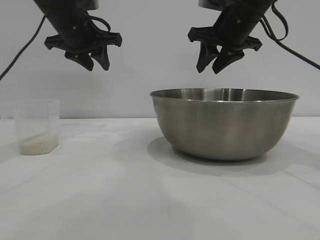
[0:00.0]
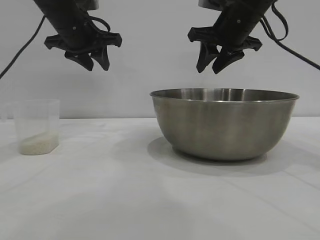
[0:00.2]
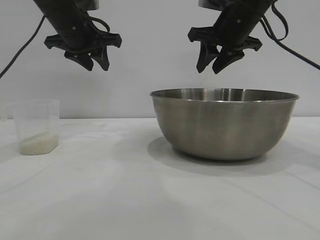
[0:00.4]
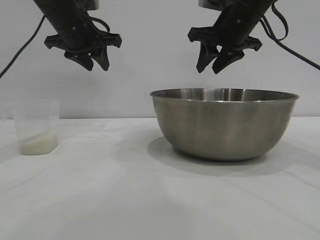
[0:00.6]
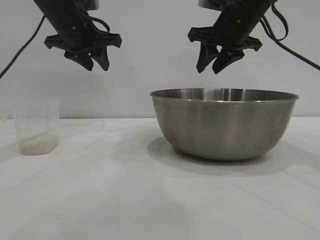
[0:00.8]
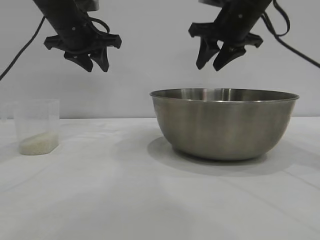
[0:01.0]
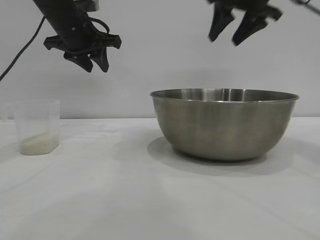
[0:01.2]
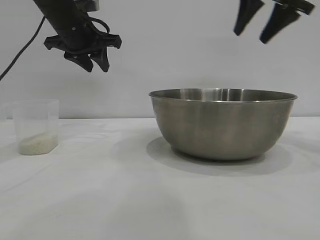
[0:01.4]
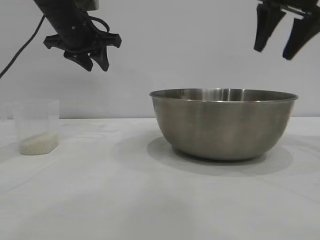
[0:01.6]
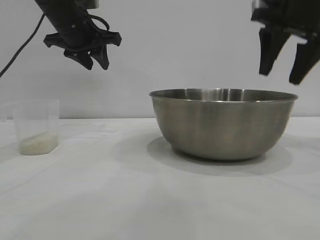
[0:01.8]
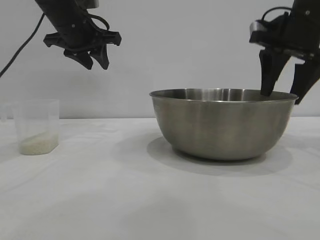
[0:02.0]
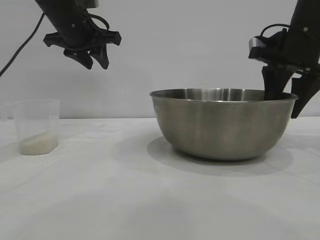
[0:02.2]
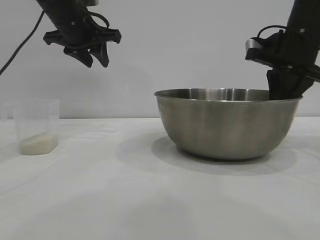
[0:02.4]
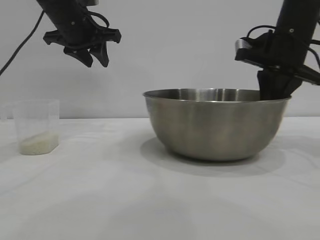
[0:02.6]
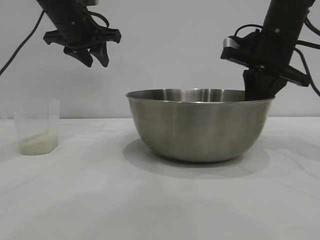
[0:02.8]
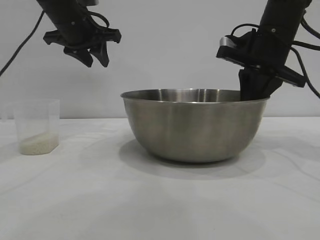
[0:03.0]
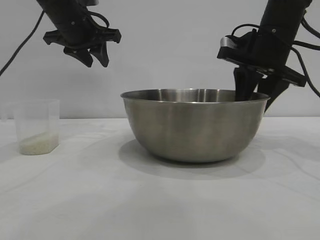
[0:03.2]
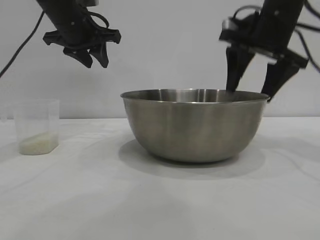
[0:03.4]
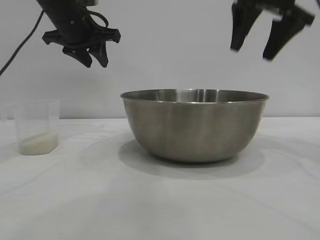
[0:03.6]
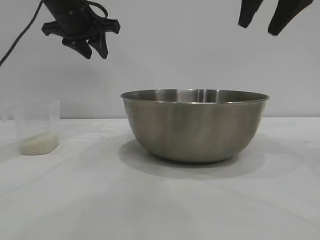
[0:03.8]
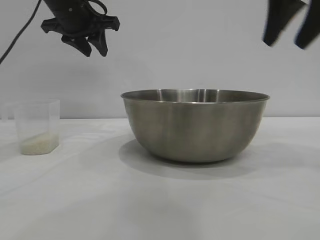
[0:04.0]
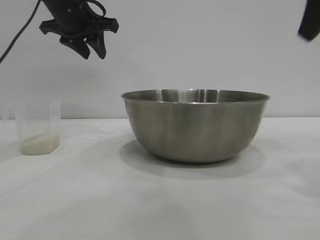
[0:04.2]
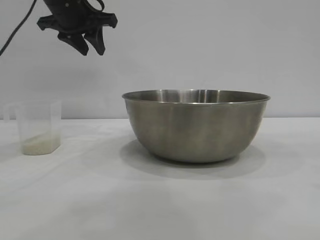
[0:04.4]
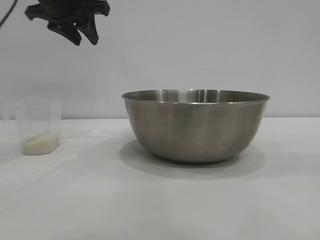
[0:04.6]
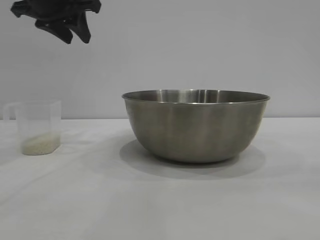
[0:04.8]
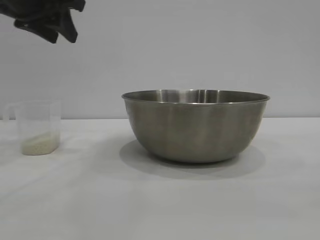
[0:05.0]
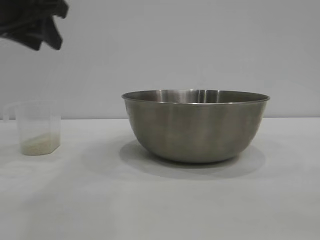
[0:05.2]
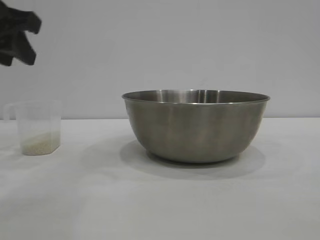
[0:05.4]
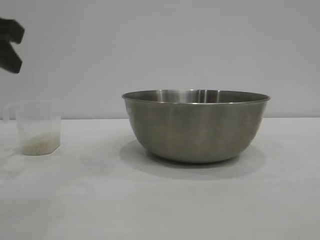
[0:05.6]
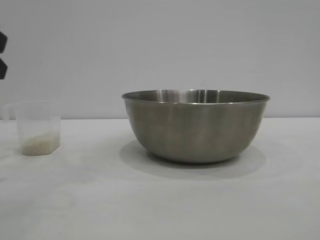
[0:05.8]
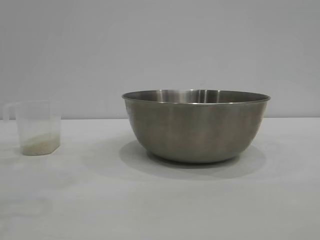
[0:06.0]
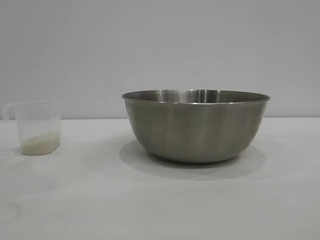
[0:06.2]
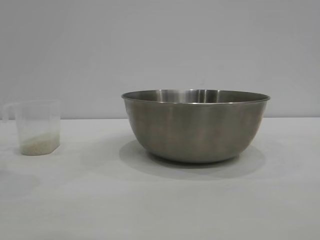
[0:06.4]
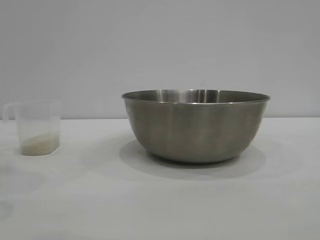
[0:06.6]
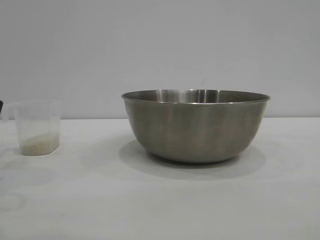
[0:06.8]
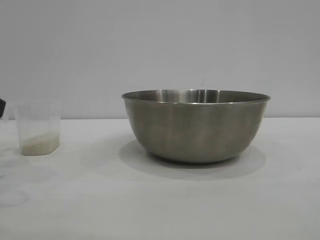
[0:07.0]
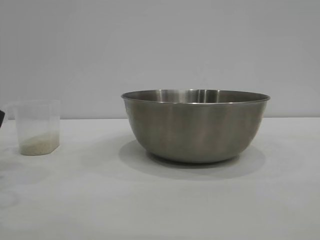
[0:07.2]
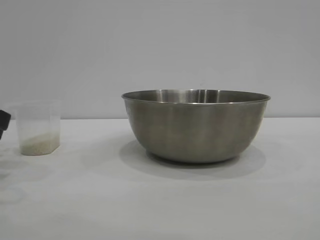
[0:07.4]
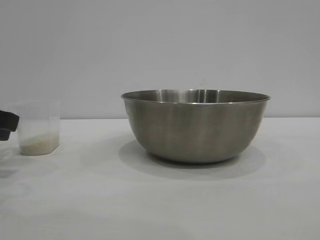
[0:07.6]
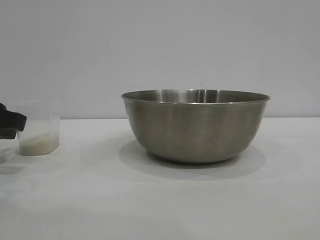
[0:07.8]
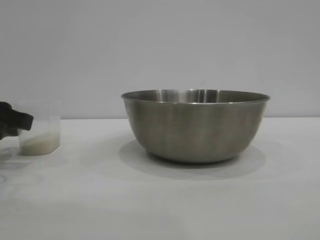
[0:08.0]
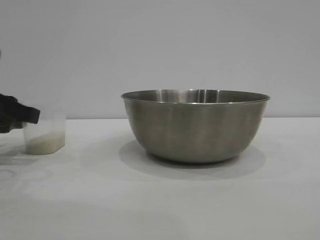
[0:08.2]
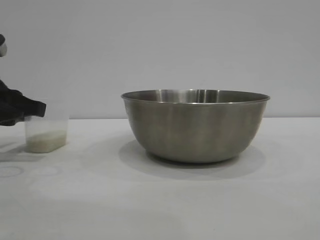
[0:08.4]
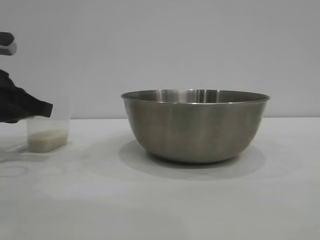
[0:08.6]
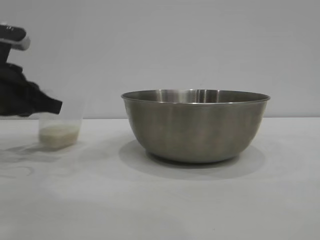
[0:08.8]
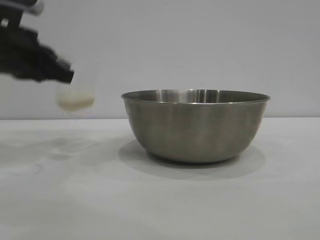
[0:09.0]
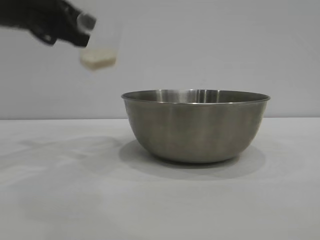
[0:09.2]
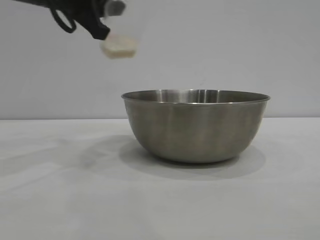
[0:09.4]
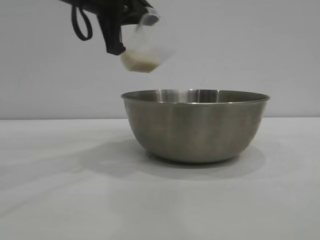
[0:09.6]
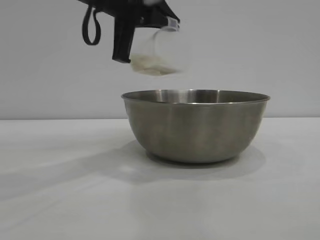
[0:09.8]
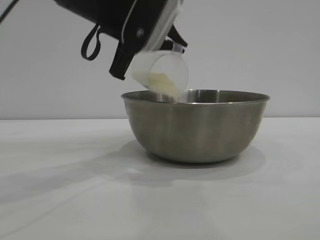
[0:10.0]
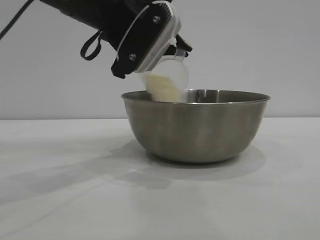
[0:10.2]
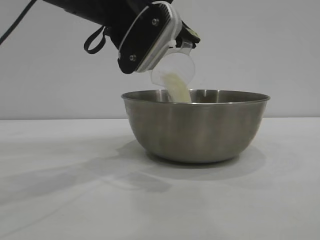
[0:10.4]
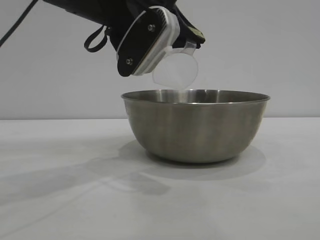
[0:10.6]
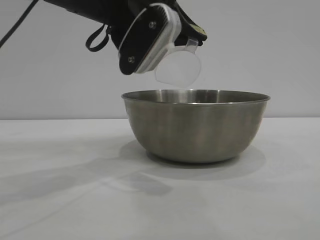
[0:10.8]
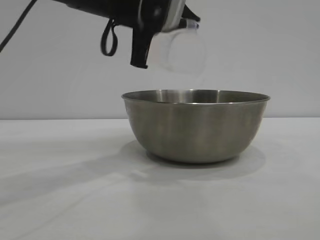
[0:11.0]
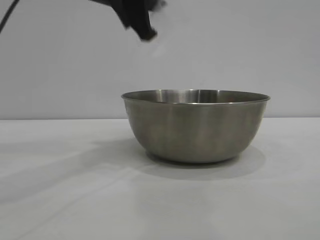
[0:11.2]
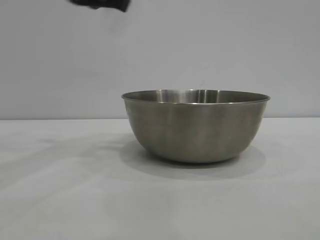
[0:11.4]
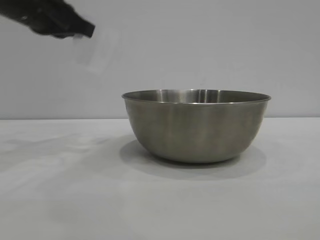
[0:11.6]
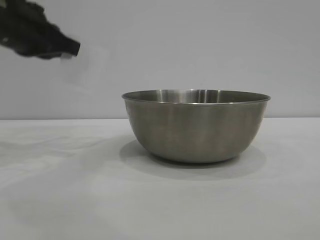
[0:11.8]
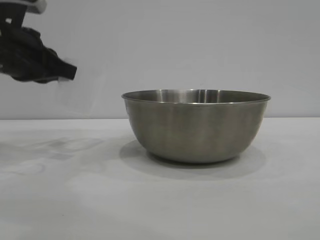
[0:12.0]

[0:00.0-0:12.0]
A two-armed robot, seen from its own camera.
Task of the whole recording: the right gripper grasp the rice container and place it in the center of the table, the left gripper grasp the rice scoop and pour the rice into the rice container.
Step, 0:00.0 to 0:03.4: Move the bowl to the center of view with the right gripper.
Step, 0:03.6 to 0:09.0: Pick up the cup with rice in it with the left gripper.
Step, 0:09.2 to 0:11.0: Pour the rice from the cup into the bowl with the left gripper.

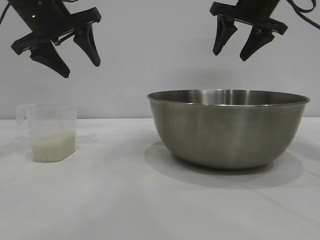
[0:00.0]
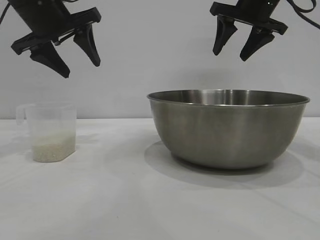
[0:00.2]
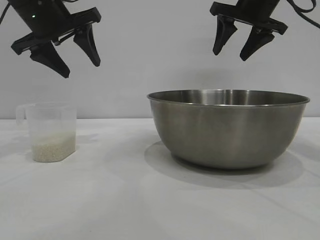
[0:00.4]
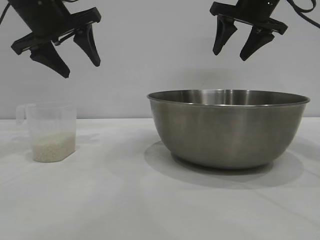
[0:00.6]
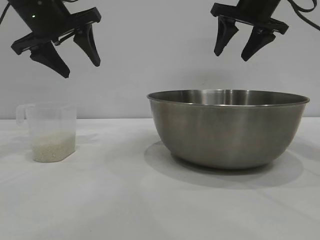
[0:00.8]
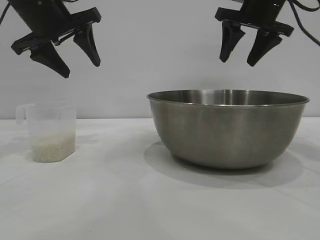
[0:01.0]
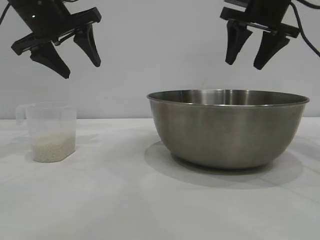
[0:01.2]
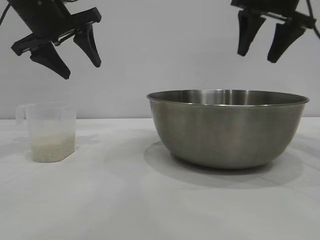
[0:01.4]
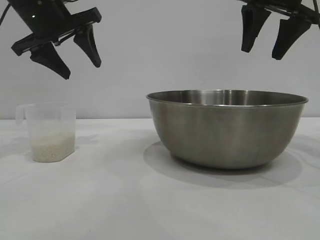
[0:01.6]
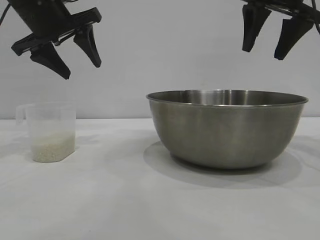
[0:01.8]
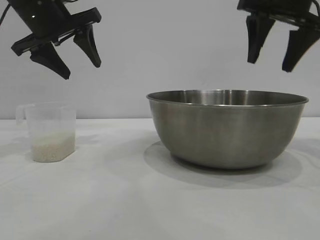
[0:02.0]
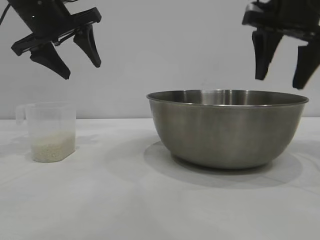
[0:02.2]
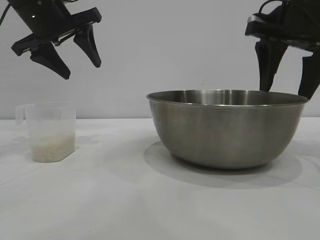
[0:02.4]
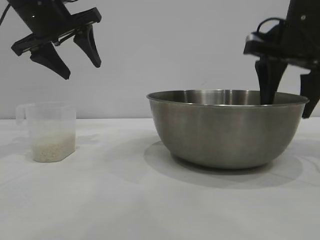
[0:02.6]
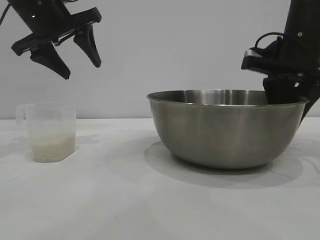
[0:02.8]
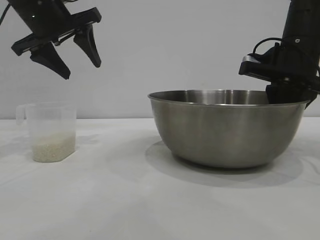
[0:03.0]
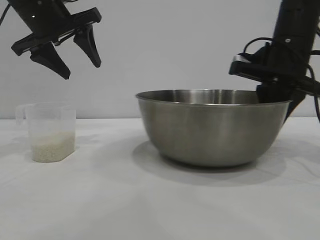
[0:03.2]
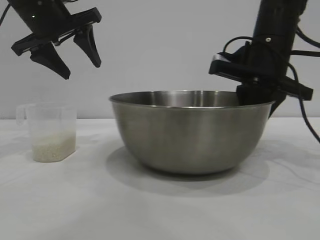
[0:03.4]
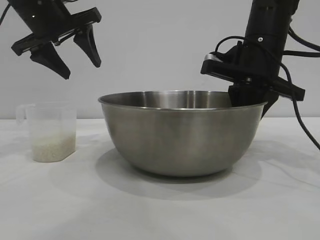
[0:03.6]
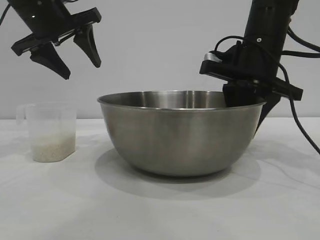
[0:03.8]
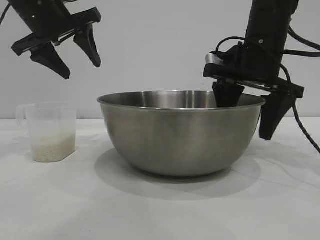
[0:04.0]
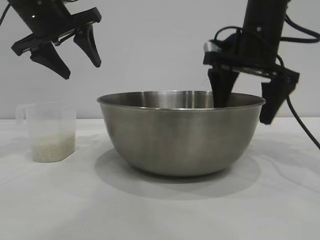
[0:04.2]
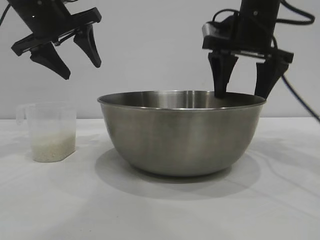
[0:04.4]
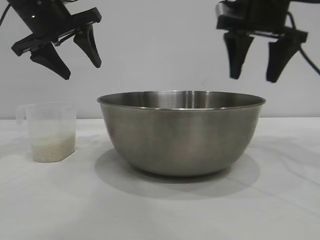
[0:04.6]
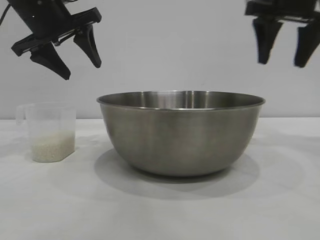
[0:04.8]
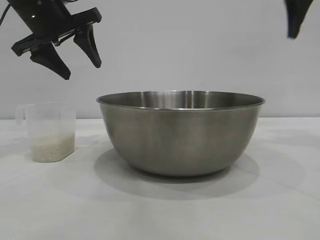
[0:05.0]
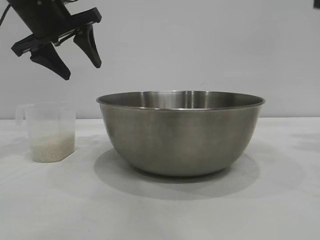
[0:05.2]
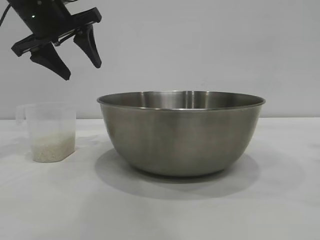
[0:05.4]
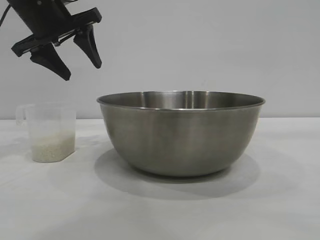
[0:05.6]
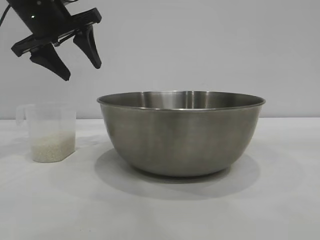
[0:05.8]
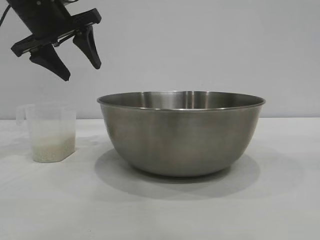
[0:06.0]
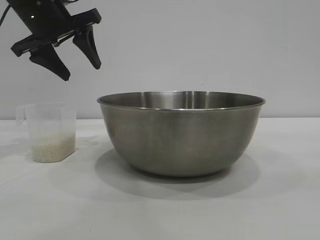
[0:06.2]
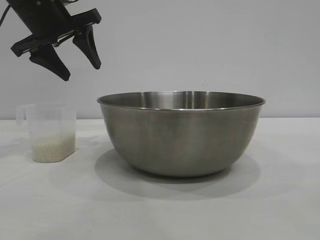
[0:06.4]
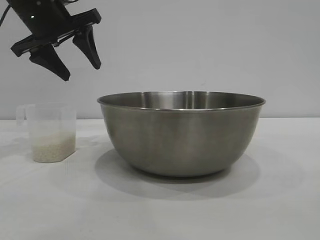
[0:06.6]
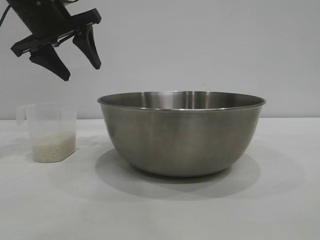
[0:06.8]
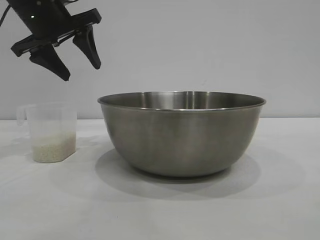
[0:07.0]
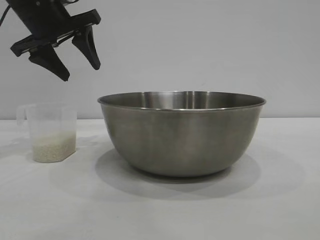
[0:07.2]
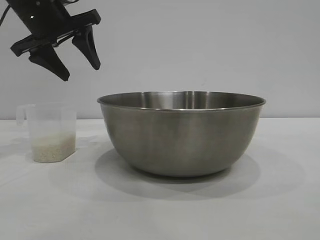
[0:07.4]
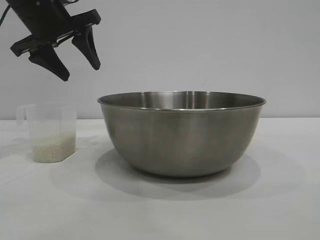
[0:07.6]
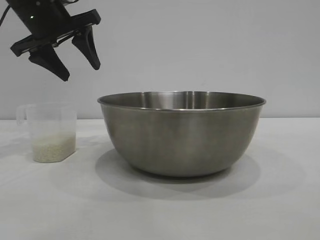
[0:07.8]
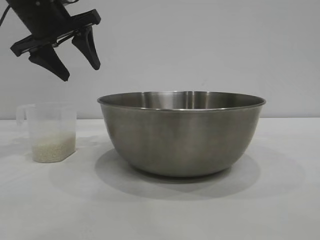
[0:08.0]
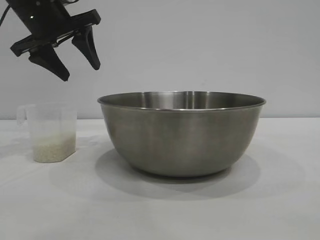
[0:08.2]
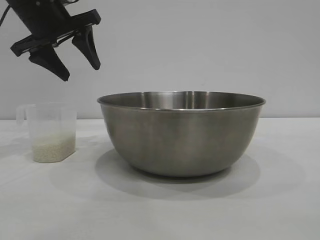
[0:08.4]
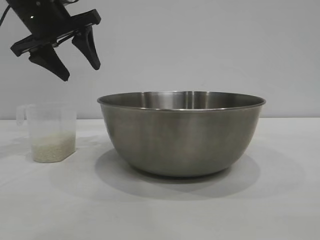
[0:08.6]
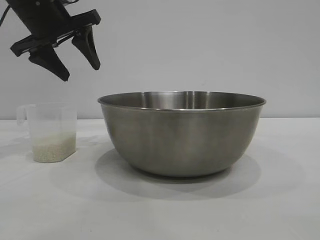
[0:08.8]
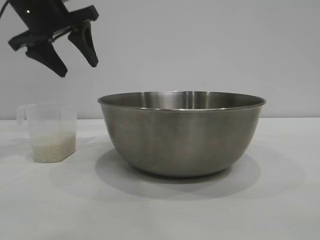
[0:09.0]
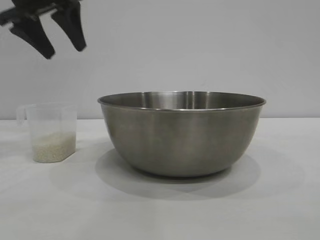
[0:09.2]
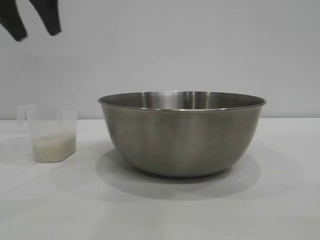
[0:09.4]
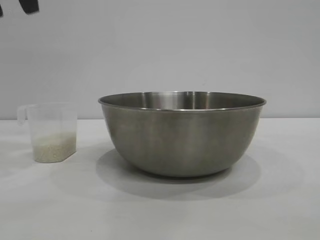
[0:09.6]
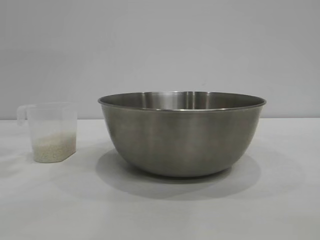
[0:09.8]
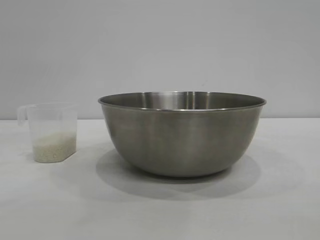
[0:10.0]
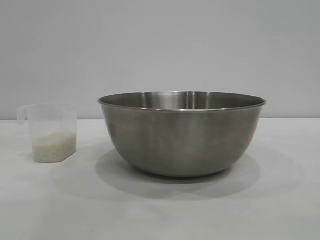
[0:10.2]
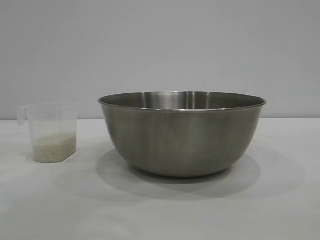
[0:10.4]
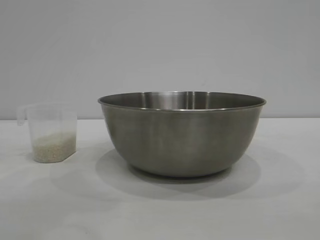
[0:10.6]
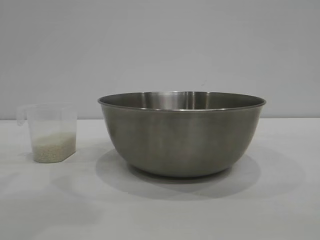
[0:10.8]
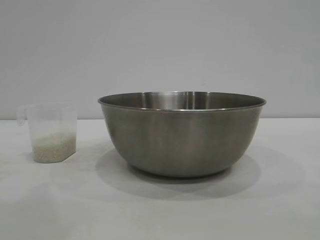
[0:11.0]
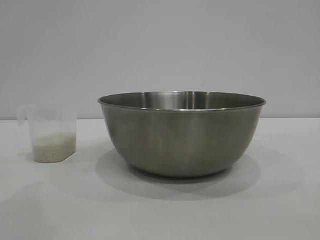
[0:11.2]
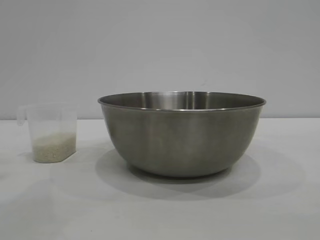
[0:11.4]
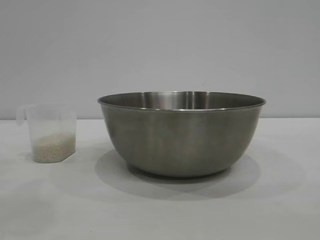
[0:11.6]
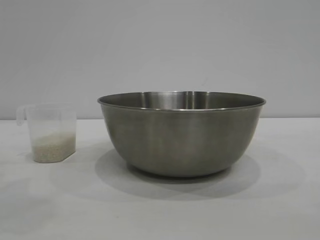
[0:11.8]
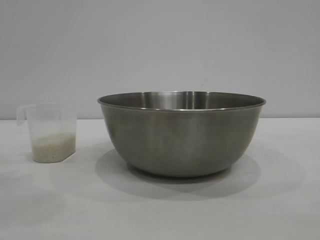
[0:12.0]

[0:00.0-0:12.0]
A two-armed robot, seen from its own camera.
Task of the whole recording: the right gripper grasp the rice container and place it in the center of the table, the left gripper grasp the rice scoop and pour the rice into the rice container.
Step, 0:00.0 to 0:04.8: Move the bowl to the center of view with the right gripper.
